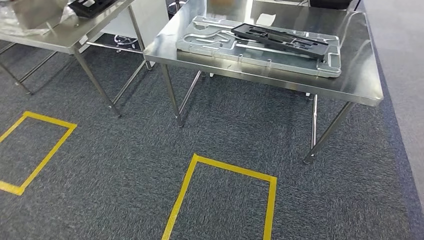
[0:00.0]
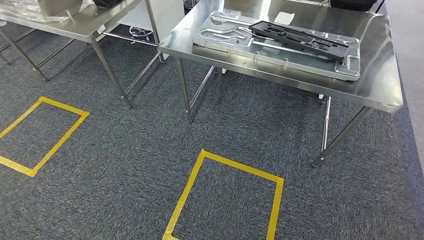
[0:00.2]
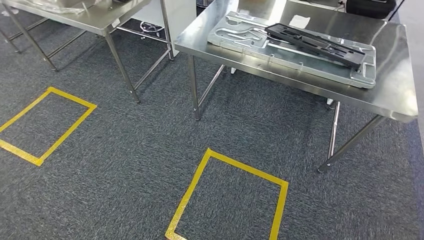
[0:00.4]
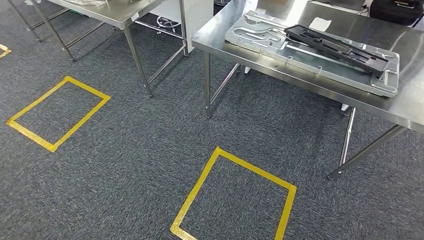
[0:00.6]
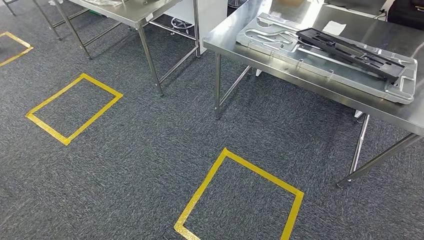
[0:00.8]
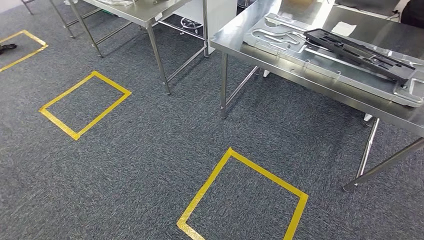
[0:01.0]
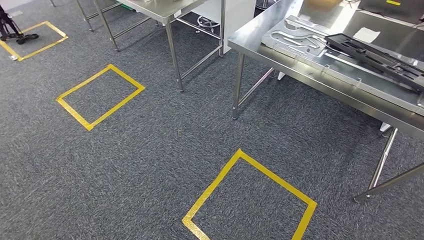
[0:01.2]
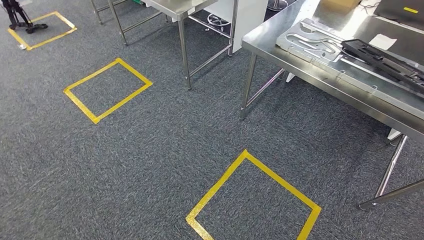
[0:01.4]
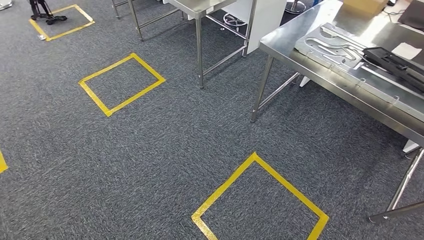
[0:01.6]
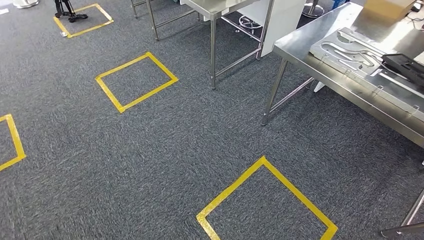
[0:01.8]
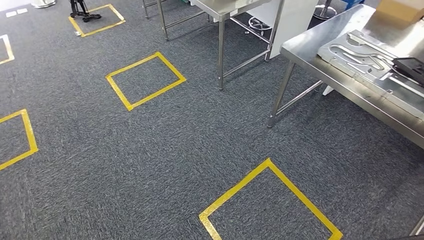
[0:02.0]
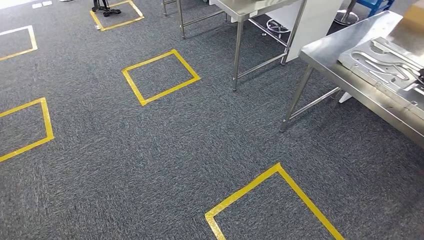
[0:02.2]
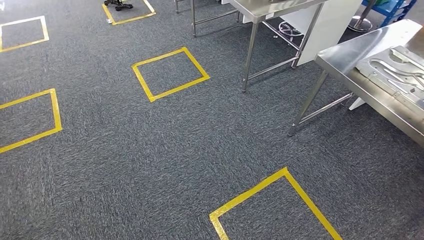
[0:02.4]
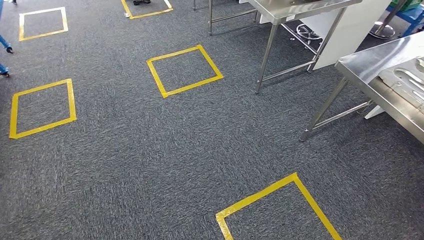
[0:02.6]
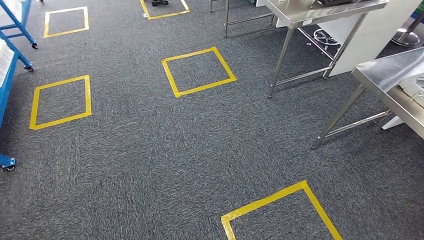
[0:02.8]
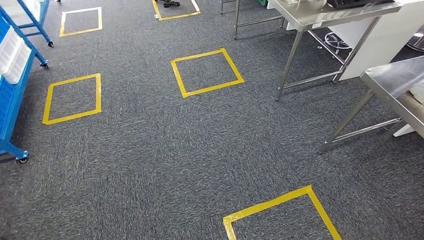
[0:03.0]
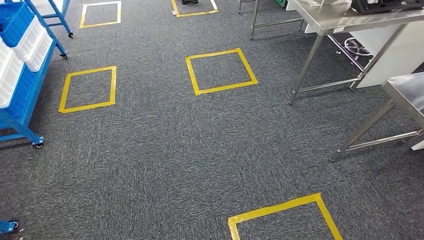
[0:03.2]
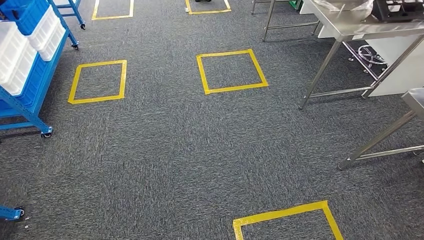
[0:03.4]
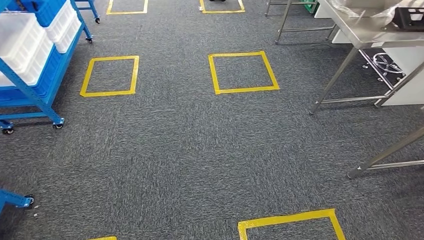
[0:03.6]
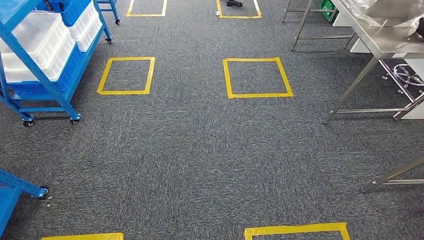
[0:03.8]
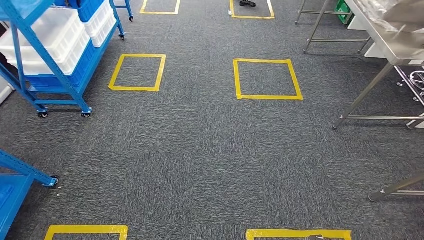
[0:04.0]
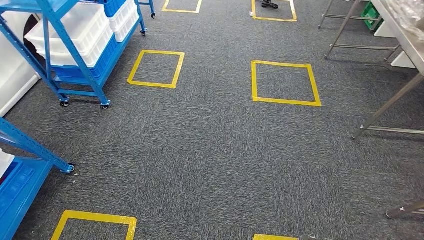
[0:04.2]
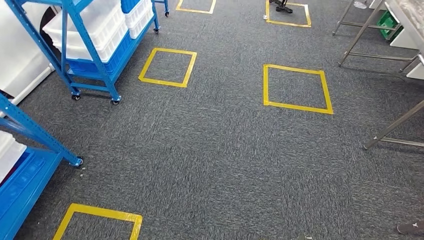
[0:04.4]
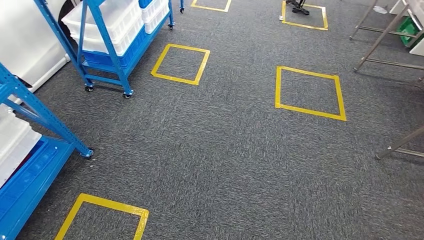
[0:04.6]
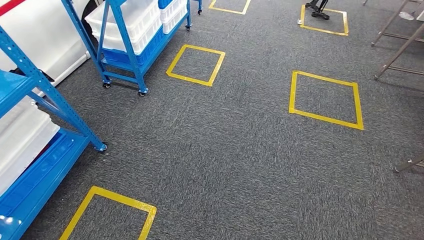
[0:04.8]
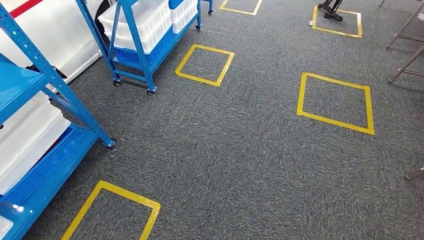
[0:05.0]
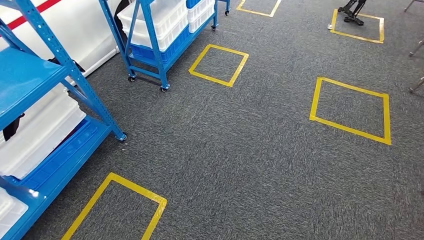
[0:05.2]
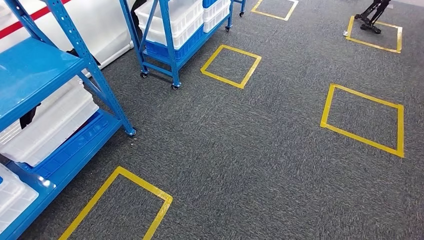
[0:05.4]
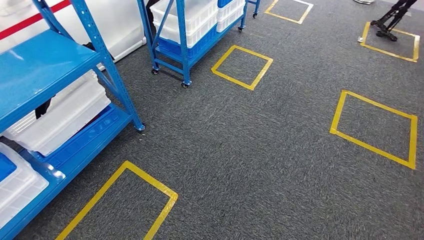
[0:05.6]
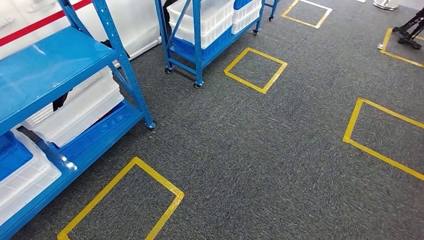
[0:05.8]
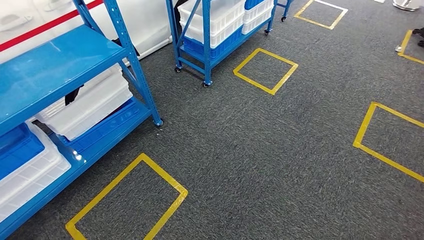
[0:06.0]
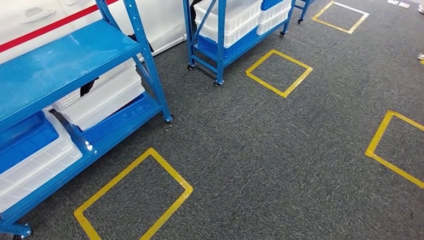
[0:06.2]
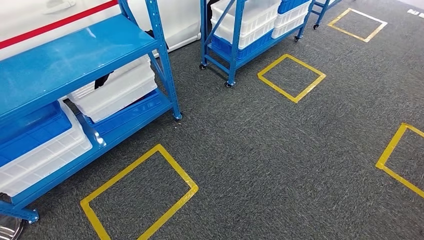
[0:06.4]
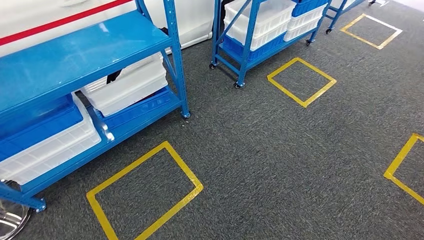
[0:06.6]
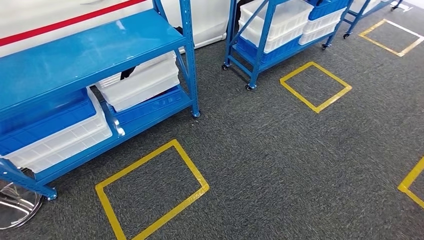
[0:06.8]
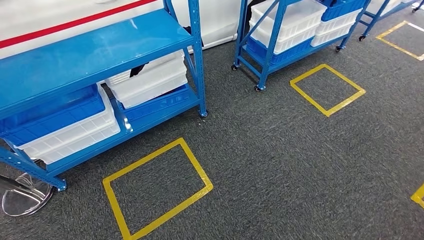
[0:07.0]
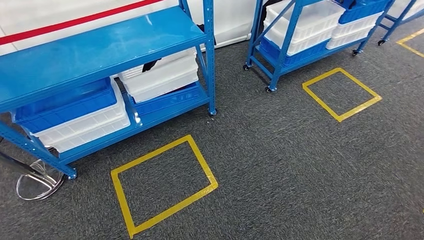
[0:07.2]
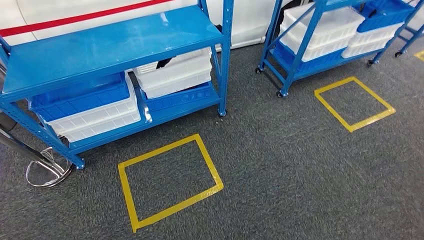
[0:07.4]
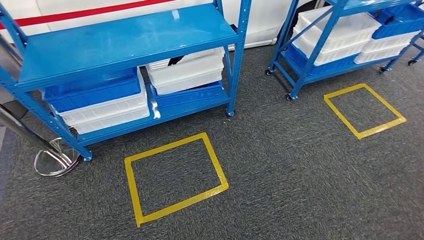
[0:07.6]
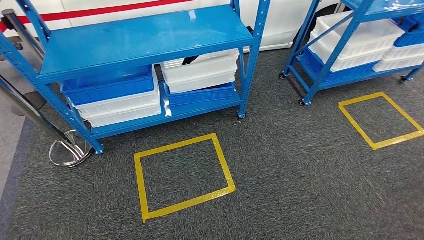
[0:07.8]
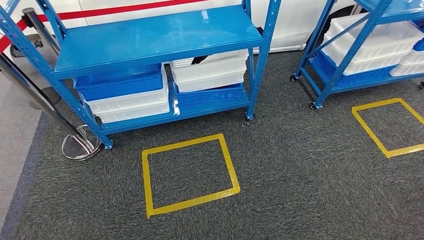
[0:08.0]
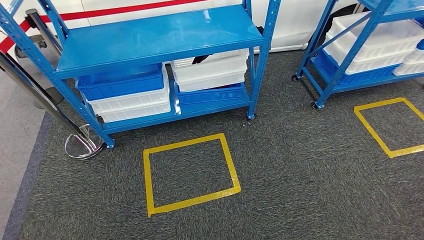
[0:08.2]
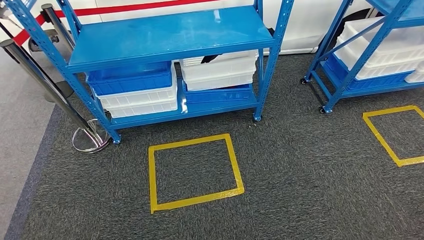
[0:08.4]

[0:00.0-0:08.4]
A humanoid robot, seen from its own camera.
Step, 0:01.0 to 0:08.4: Return to the initial position at the shelf.
